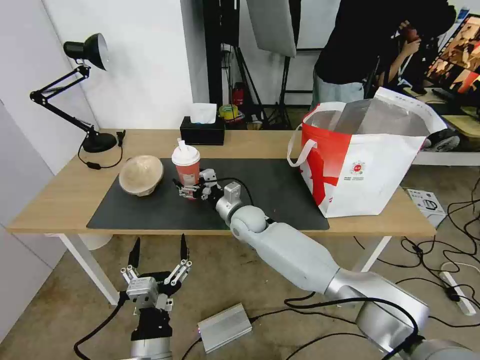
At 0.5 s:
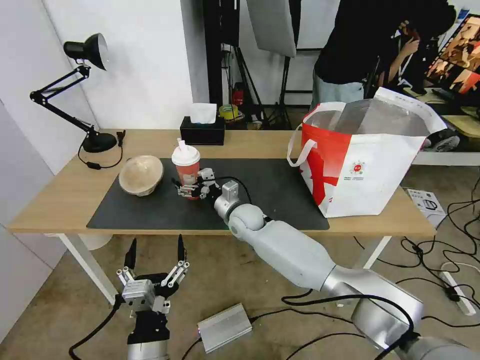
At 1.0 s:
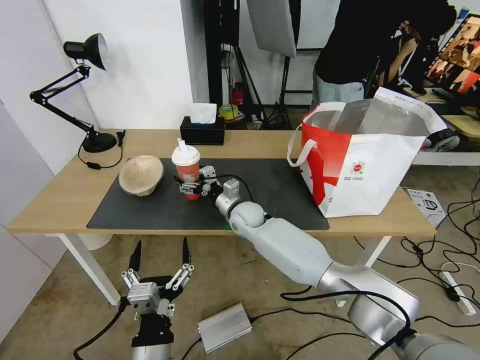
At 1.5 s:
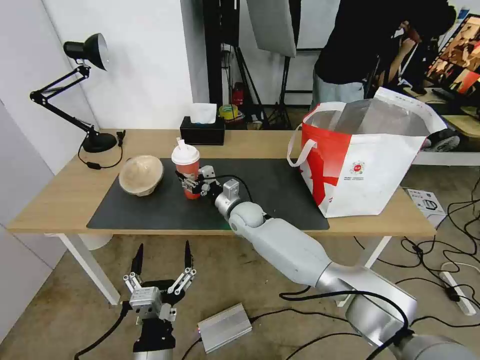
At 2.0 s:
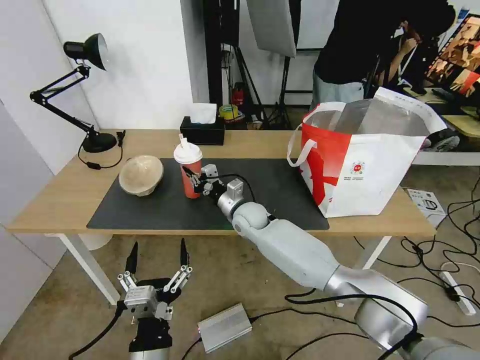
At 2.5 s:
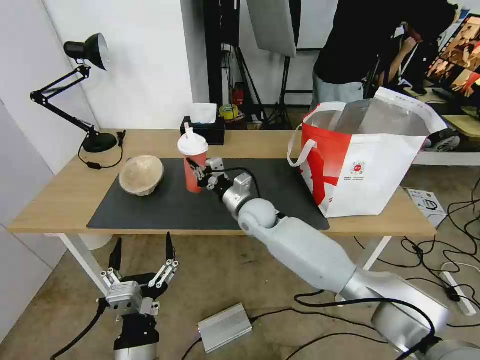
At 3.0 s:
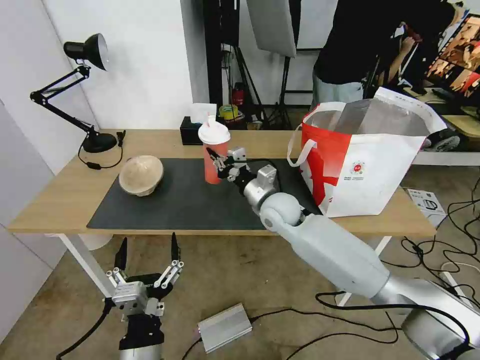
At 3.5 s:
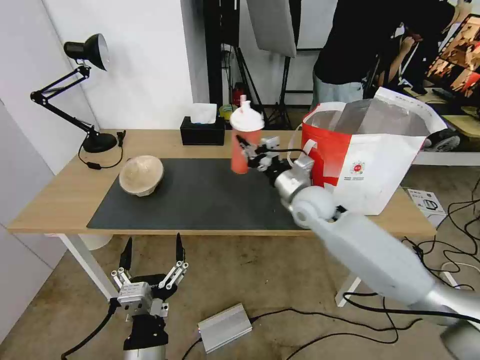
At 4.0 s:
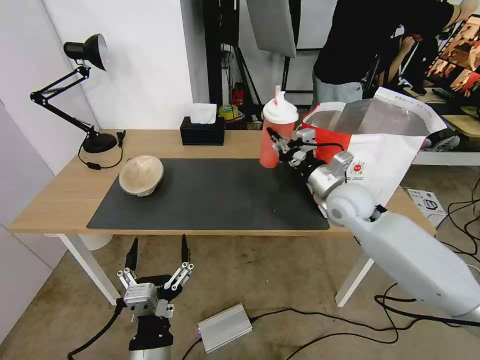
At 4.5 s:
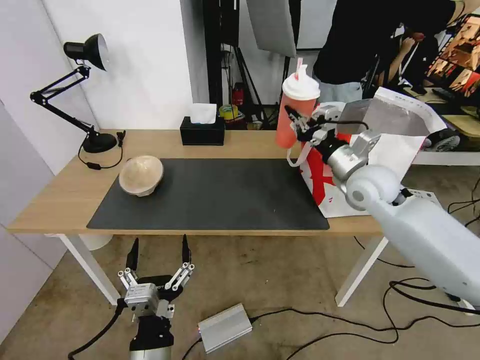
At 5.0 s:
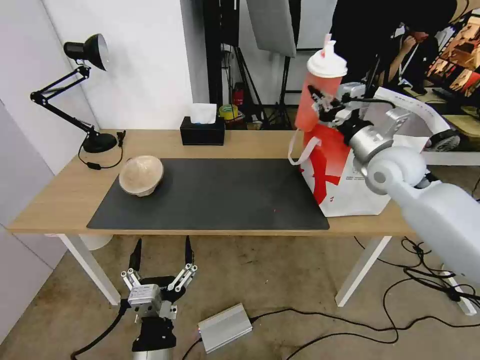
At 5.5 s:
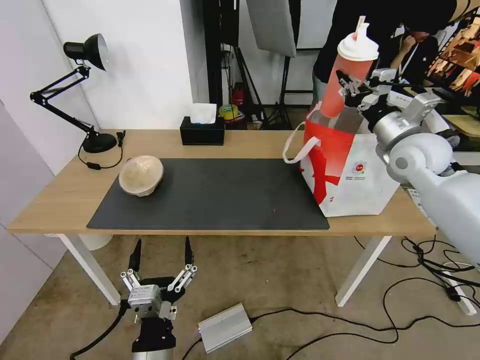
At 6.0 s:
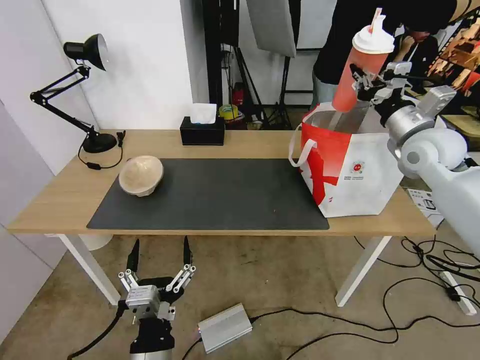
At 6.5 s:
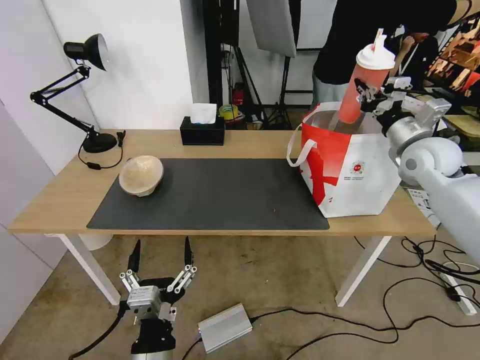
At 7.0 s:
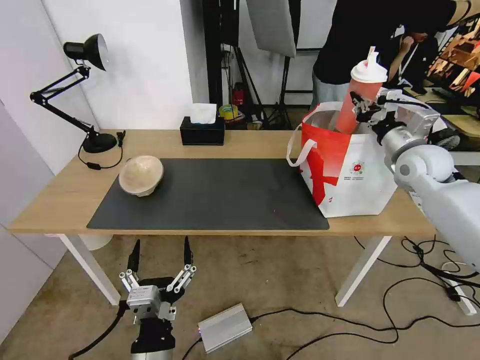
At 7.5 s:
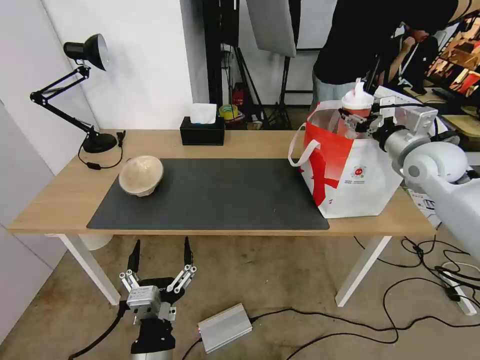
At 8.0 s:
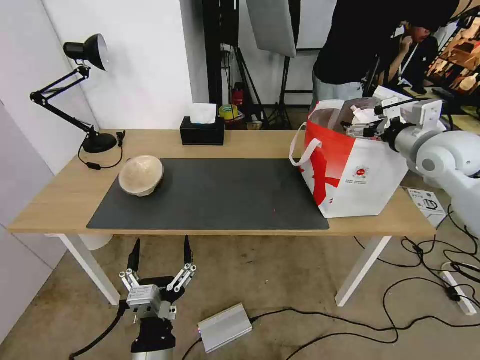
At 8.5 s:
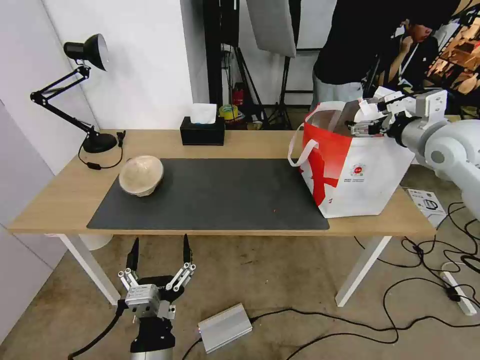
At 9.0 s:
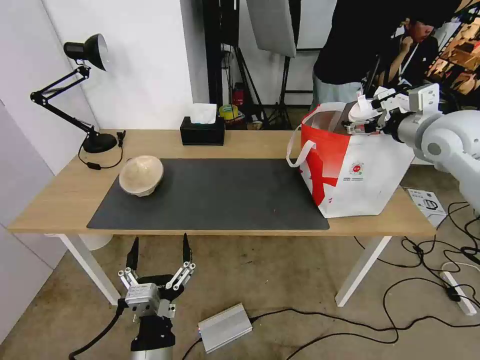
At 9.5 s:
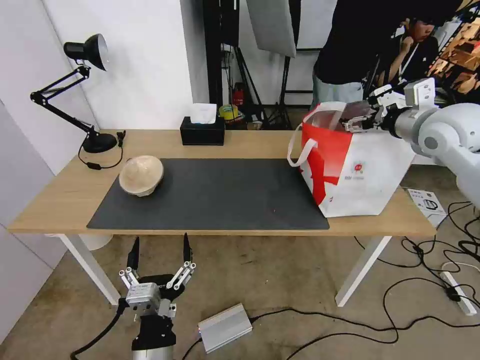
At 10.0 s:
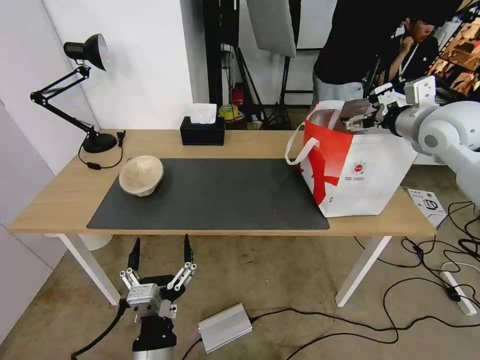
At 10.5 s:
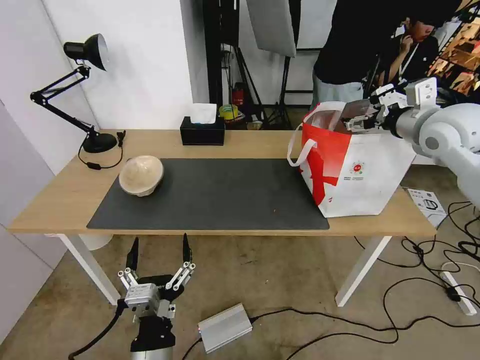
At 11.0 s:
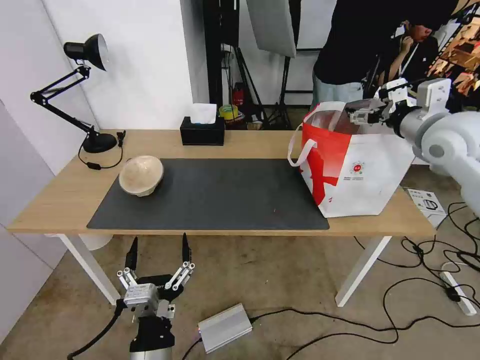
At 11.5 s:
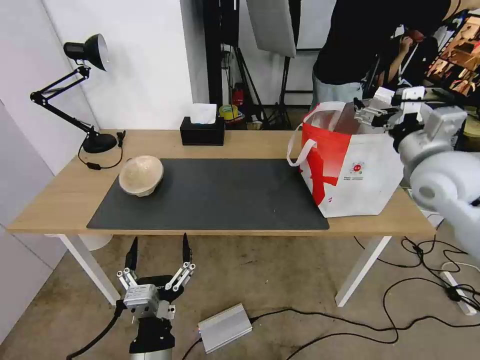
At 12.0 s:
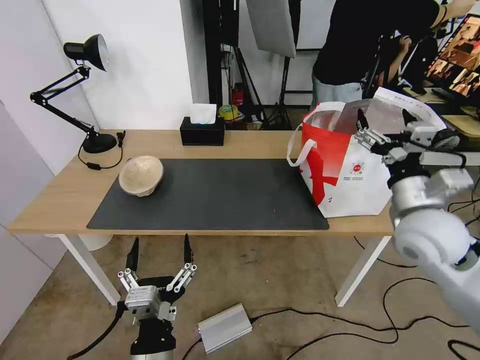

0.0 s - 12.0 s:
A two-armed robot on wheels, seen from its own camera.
Task of the whole recording: Pick up the trash from the table and place it into the takeout bag.
0.0 s - 2.0 s: The right gripper closes up.
2.0 s - 4.0 s: The right gripper is displaced to the right and upward by roughly 25 cm.
4.0 s - 6.0 s: The right gripper heads to the right and upward, covering roughly 20 cm.
6.0 s - 8.0 s: The right gripper opens up.
8.0 s - 10.0 s: The right gripper changes place by about 5 cm.
10.0 s - 12.0 s: The right gripper travels backward, downward and to the left by some 20 cm.

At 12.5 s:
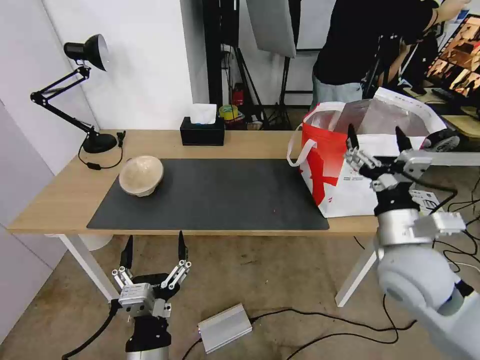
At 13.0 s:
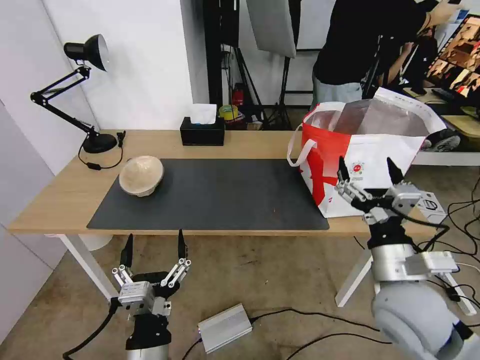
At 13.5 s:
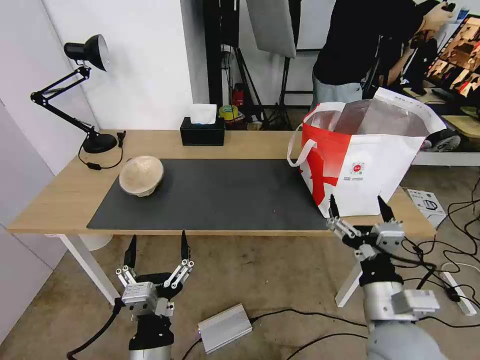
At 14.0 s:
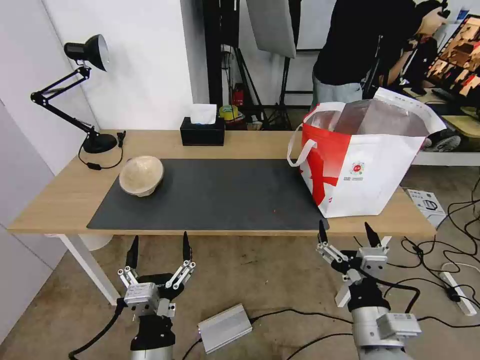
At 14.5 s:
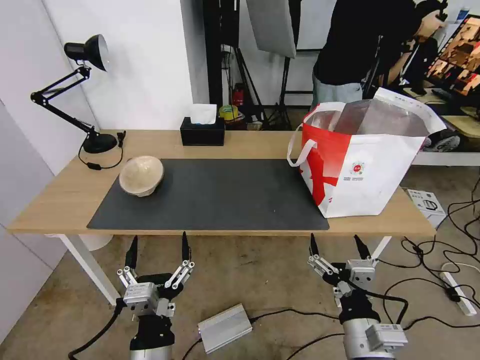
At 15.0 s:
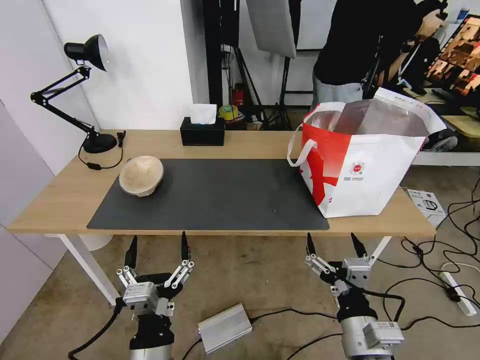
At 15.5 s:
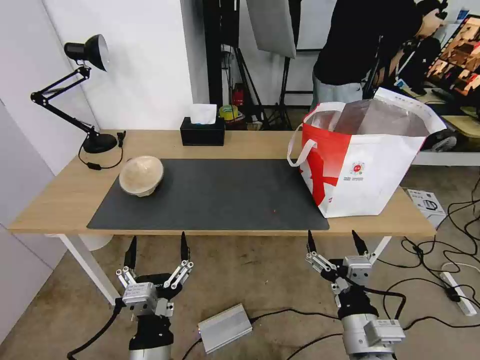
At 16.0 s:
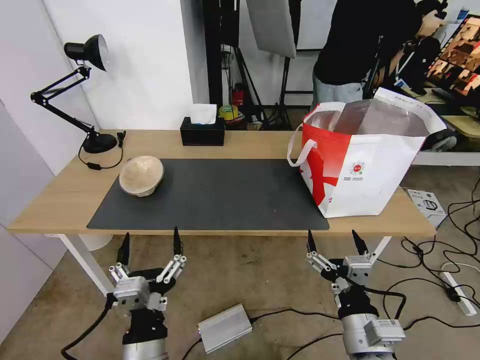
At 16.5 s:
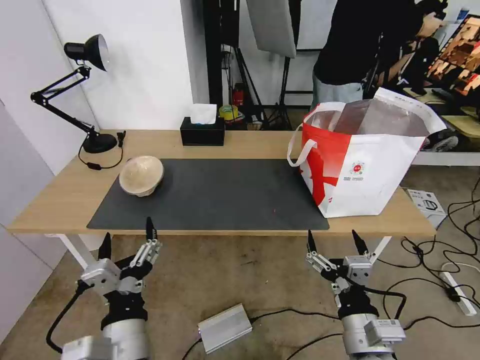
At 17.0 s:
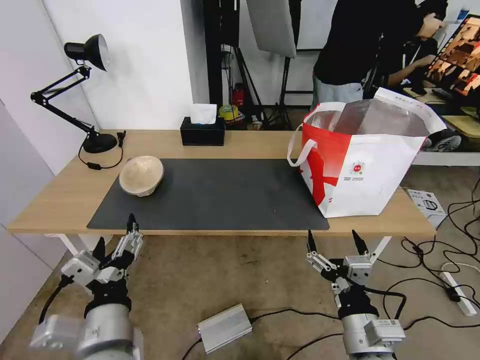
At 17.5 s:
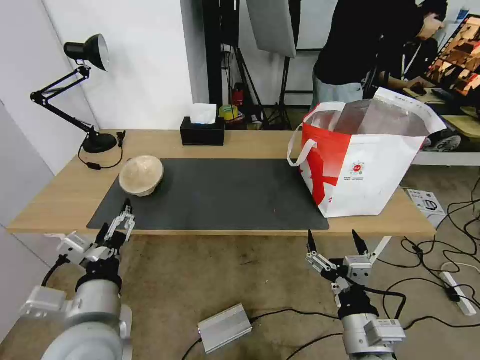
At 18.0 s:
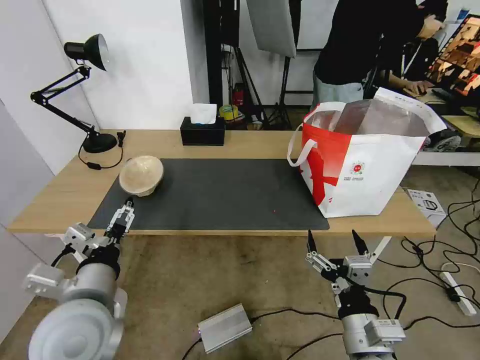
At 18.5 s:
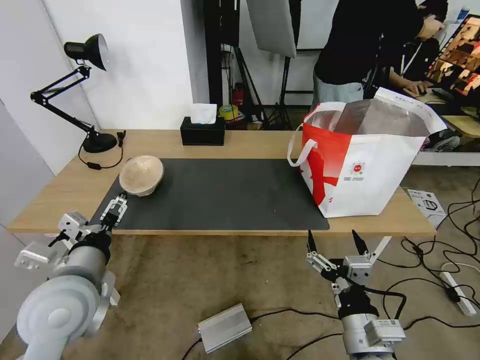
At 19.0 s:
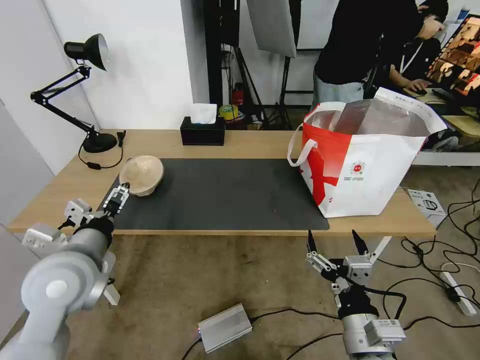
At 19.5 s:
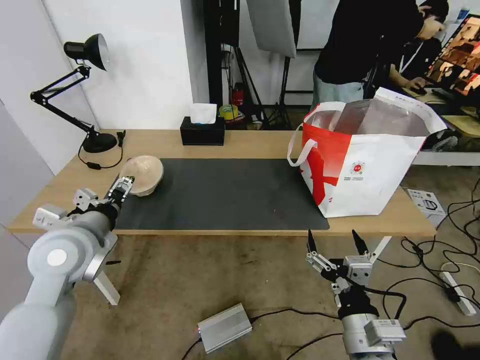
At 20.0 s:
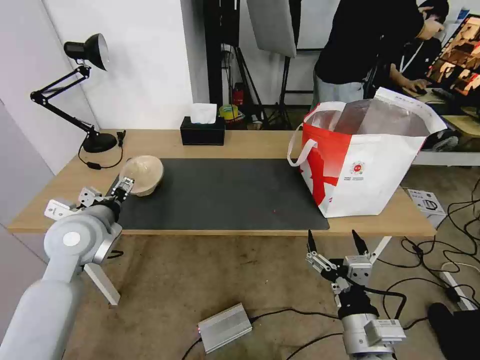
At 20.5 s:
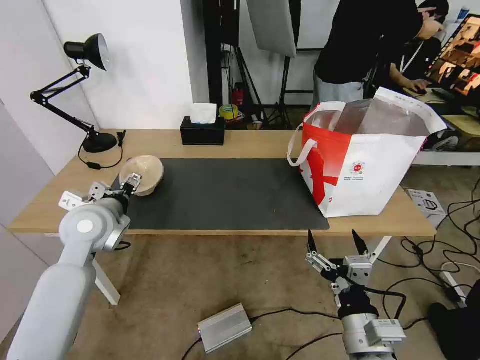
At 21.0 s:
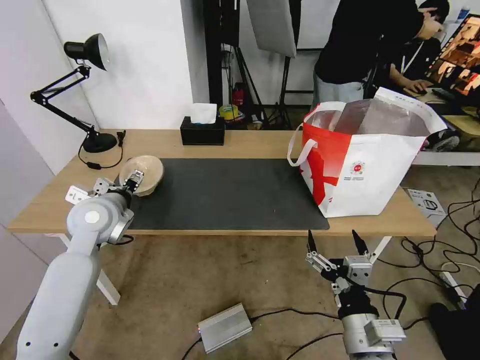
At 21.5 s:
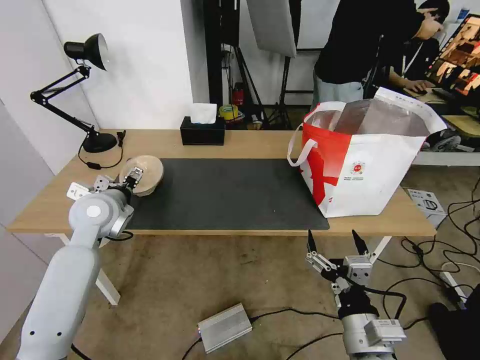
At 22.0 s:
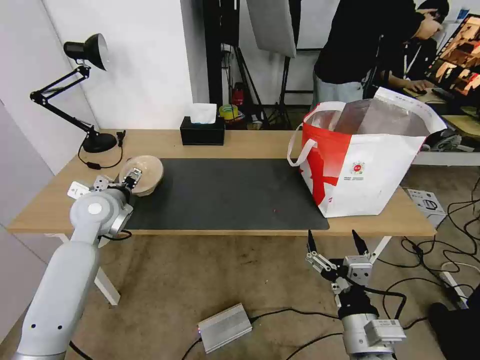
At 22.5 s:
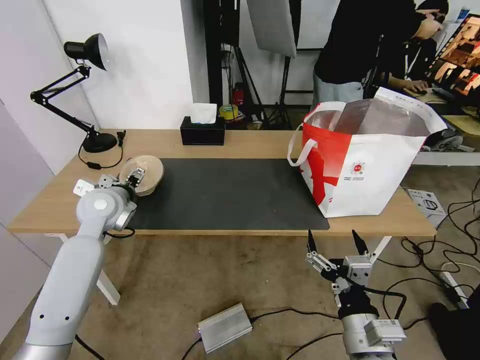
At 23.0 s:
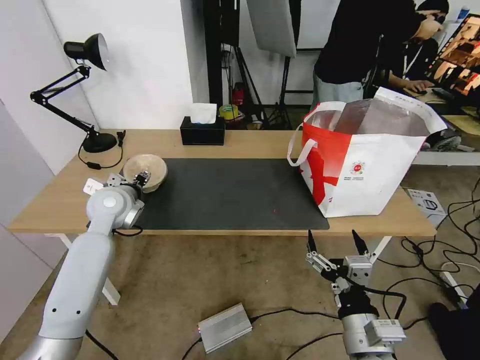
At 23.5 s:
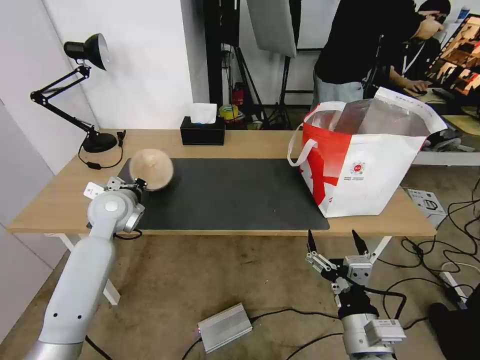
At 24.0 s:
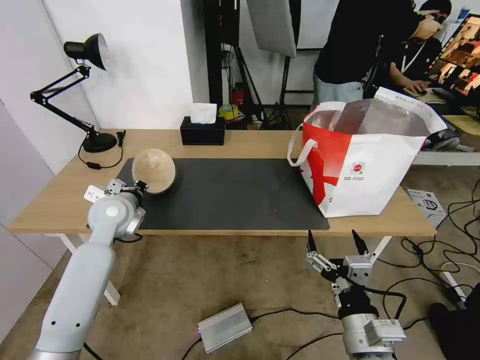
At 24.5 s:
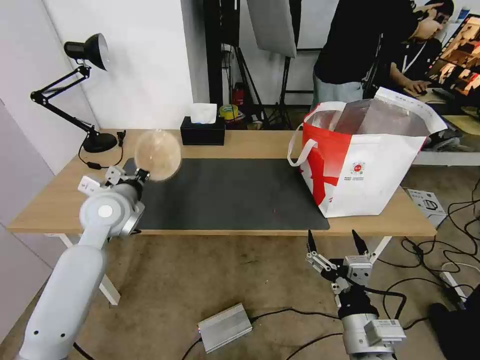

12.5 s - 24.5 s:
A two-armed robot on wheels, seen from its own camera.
Task of the whole recording: Pick up the trash from the table and place it into the takeout bag.
12.5 s - 14.5 s: The right gripper heads backward, downward and to the left, covering some 20 cm.
14.5 s - 16.5 s: The left gripper moves approximately 5 cm.
16.5 s - 18.5 s: The left gripper is displaced forward, to the left and upward by about 15 cm.
18.5 s - 20.5 s: The left gripper shifts some 15 cm forward.
20.5 s - 22.5 s: The left gripper heads forward, covering some 5 cm.
22.5 s - 24.5 s: The left gripper changes place by about 5 cm, and closes.

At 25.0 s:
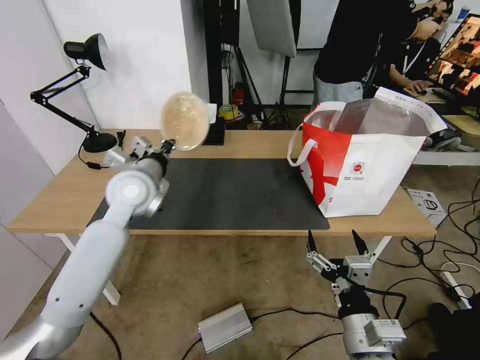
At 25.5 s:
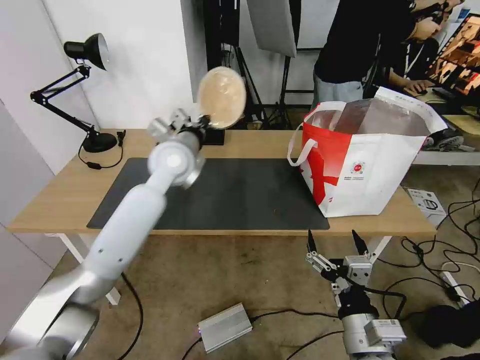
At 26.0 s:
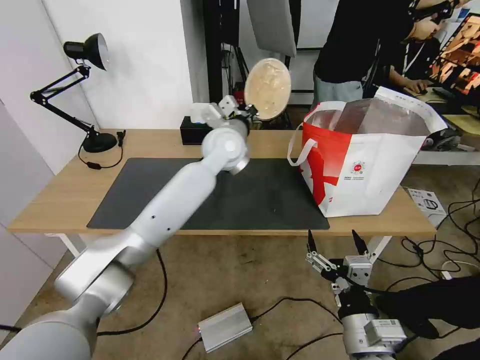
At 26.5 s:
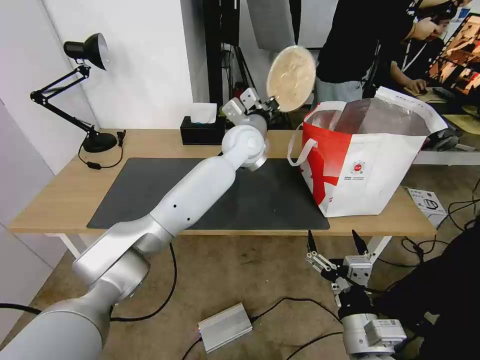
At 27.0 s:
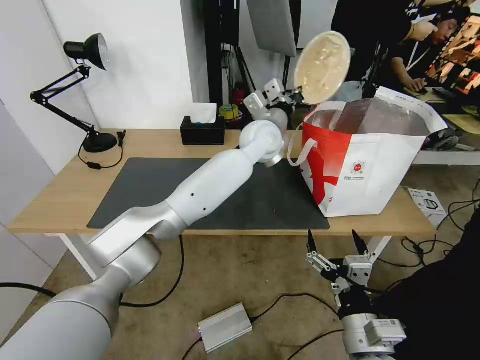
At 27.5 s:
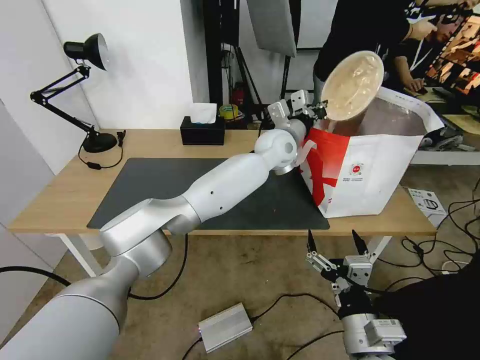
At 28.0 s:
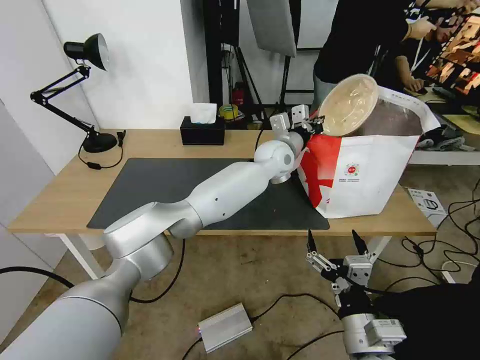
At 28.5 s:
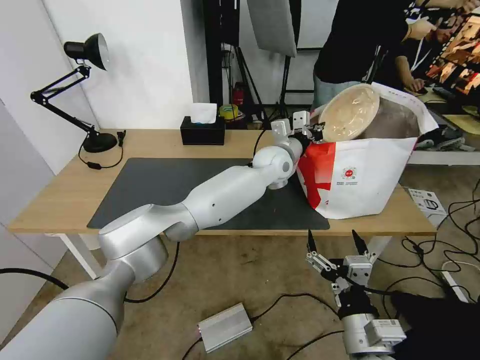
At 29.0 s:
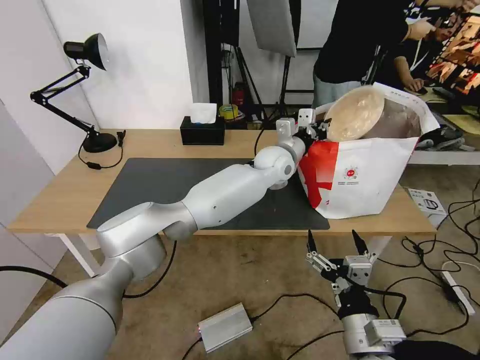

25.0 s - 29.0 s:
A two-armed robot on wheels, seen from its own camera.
Task of the whole recording: Pick up the trash from the table and place it into the takeout bag.
25.0 s - 27.0 s: The left gripper goes roughly 30 cm to the right and forward.
27.0 s - 29.0 s: The left gripper heads downward, covering about 5 cm.
